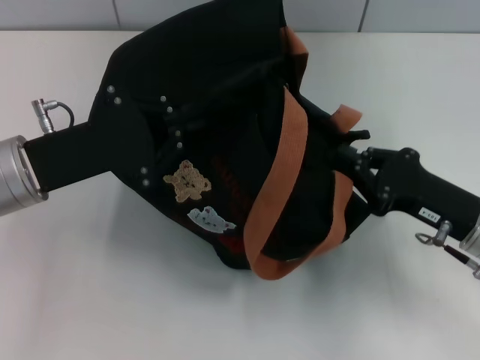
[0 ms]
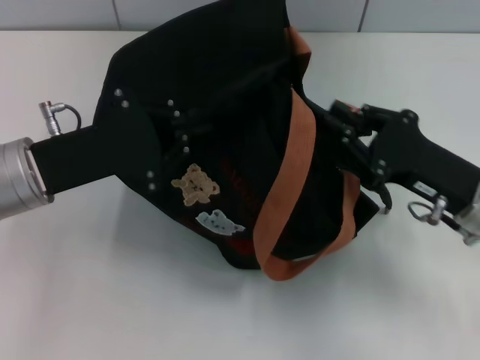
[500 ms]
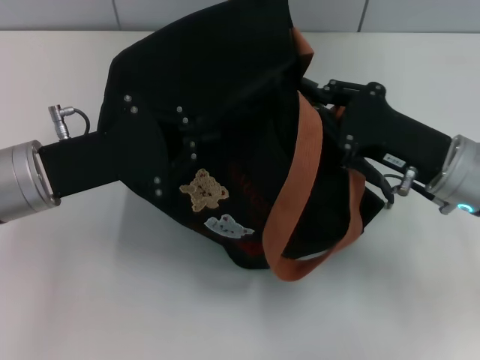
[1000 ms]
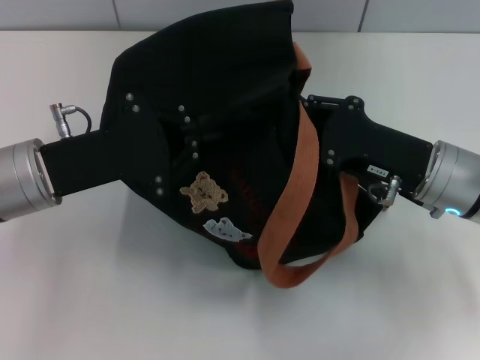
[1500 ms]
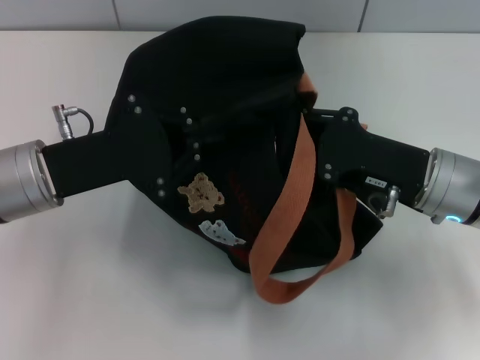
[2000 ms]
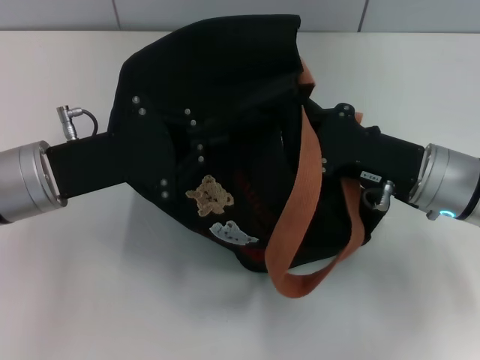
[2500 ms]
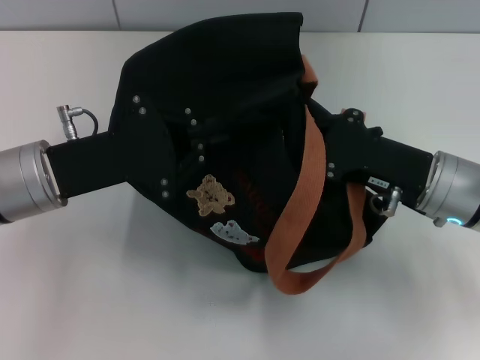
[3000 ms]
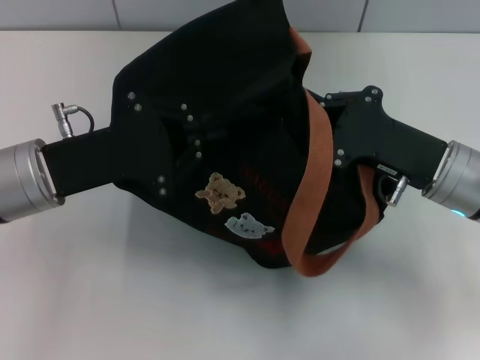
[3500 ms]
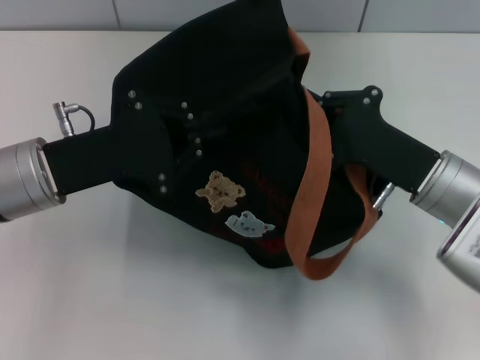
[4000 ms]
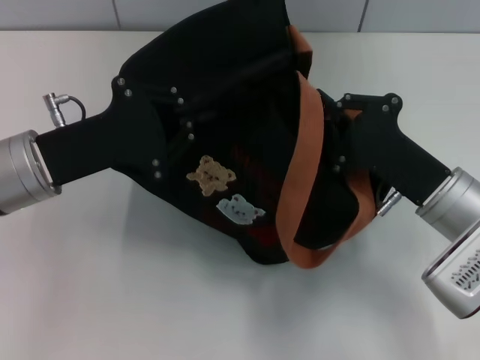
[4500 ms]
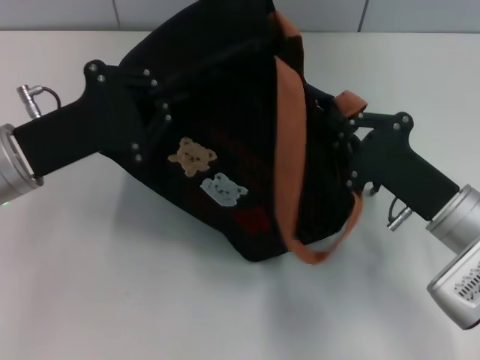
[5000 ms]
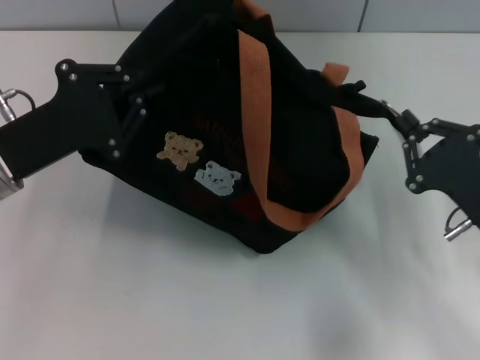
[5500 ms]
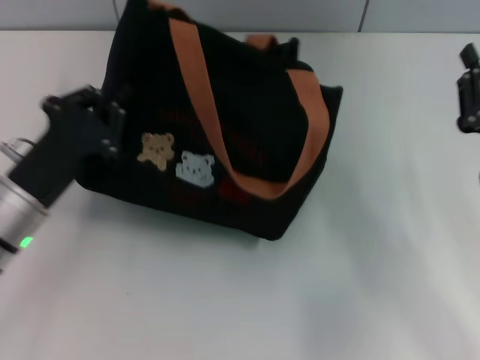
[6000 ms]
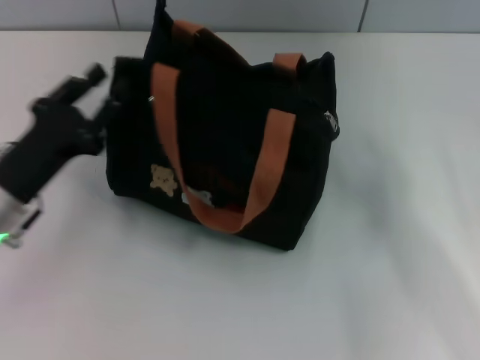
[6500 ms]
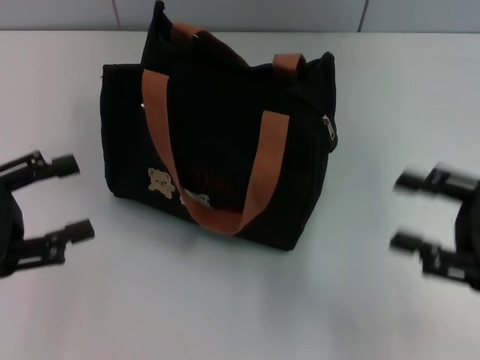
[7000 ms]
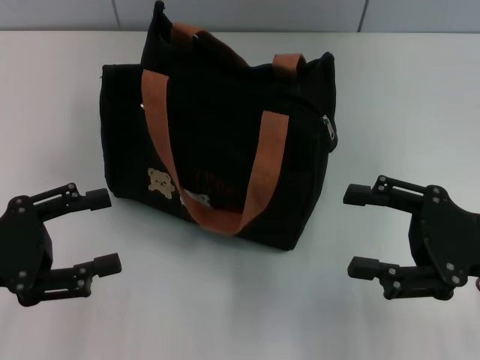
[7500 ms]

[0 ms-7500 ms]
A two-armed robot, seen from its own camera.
Step, 0 ms to 5500 ms: Pull open the zipper with your right hand.
Step, 6000 ms to 6500 ms: Grab the bag with your left hand.
0 ms to 2000 ms: The right gripper changes place by some 5 cm, and opens its fingers.
2000 ms to 4000 ms: The right gripper closes up.
4000 ms to 5500 ms: The right gripper shifts roughly 10 cm to the right and backward.
5500 ms to 7500 ms: The right gripper goes roughly 5 cm upward, and opens; the left gripper is displaced backward and to the left by roughly 10 cm, and opens up.

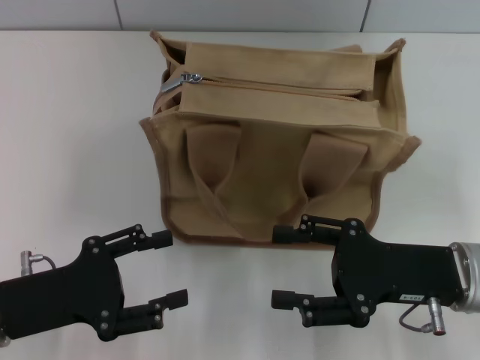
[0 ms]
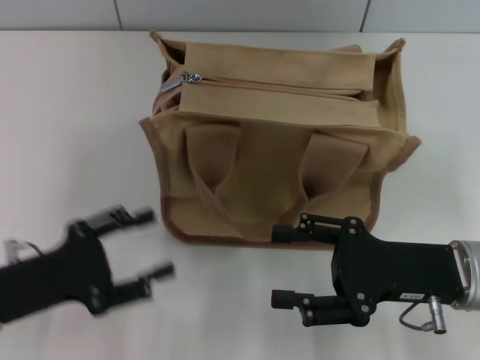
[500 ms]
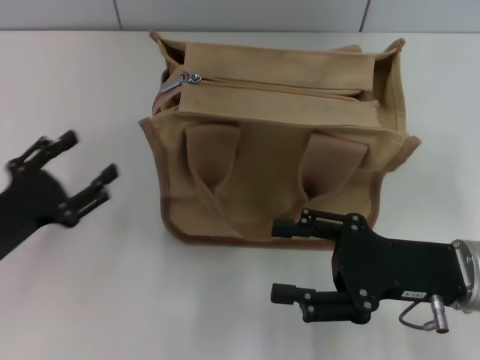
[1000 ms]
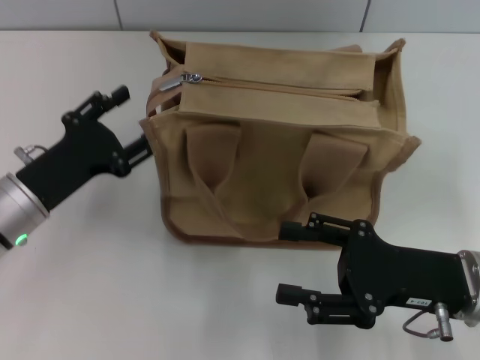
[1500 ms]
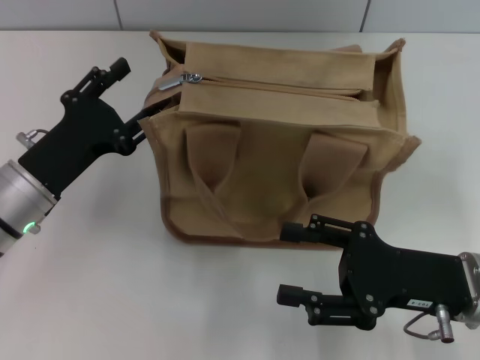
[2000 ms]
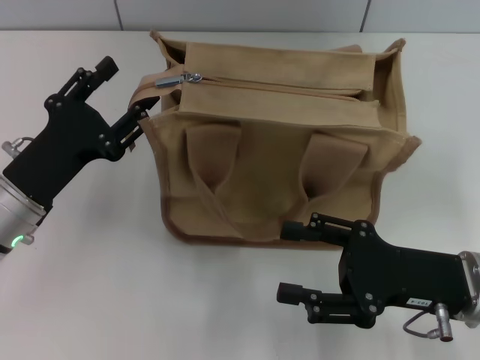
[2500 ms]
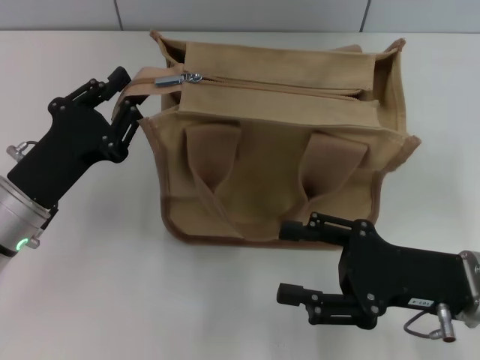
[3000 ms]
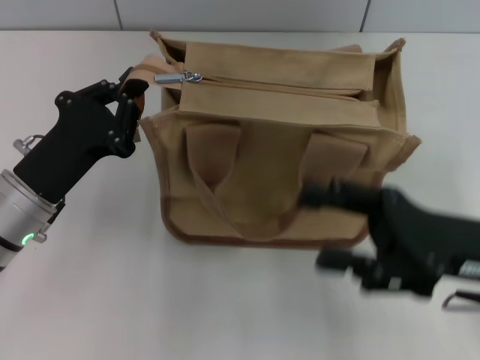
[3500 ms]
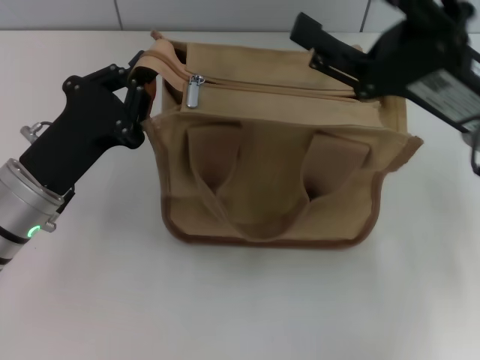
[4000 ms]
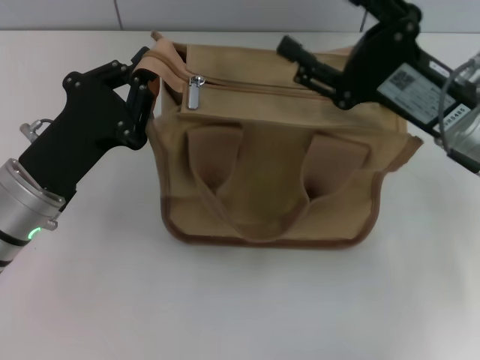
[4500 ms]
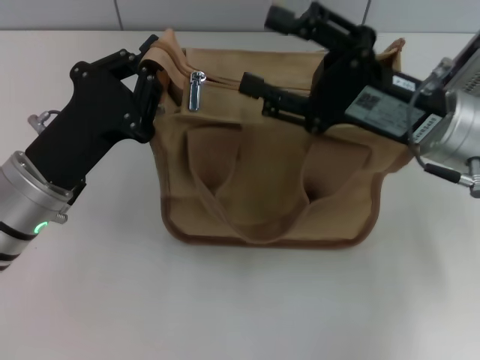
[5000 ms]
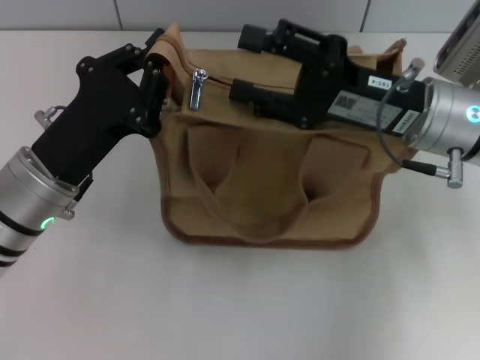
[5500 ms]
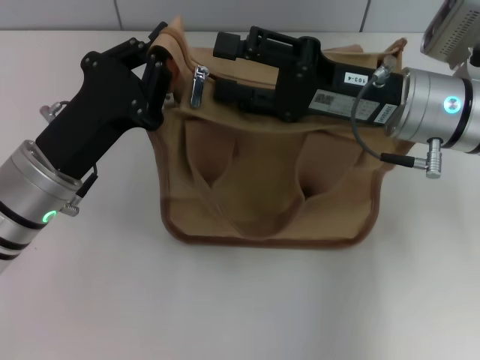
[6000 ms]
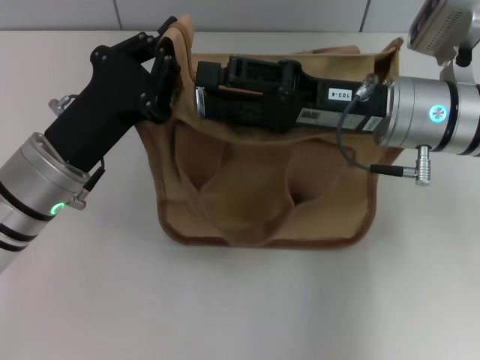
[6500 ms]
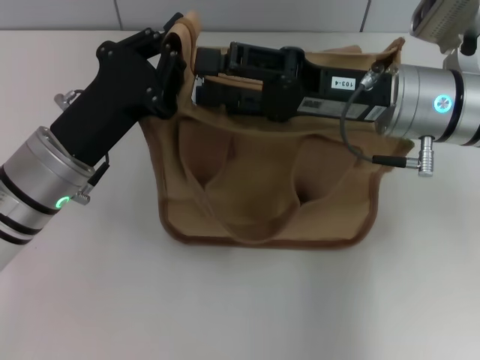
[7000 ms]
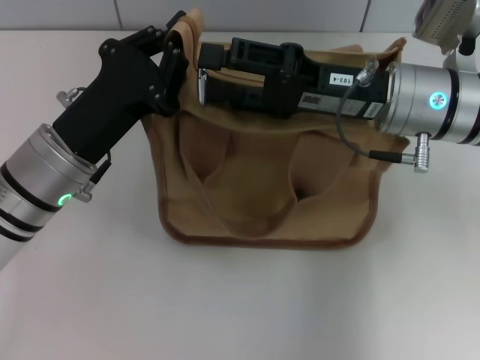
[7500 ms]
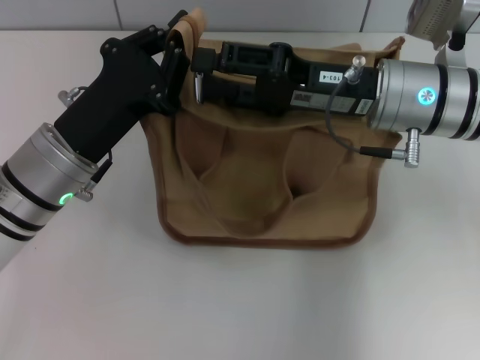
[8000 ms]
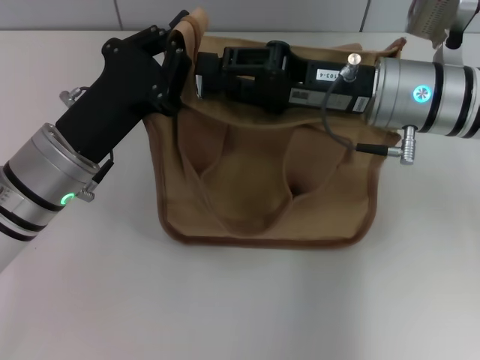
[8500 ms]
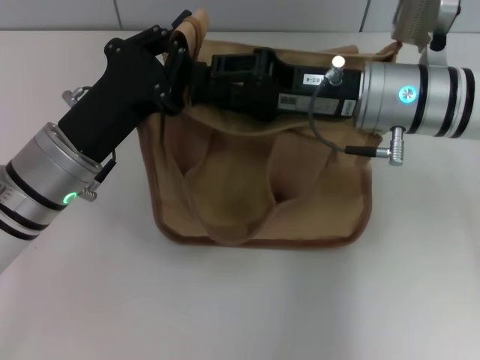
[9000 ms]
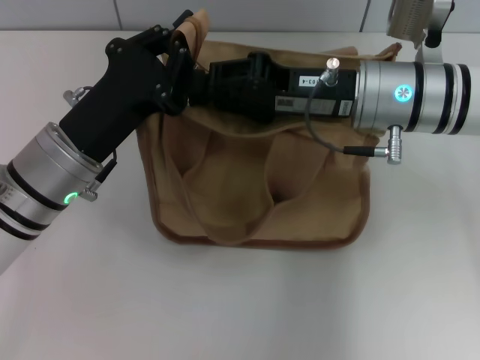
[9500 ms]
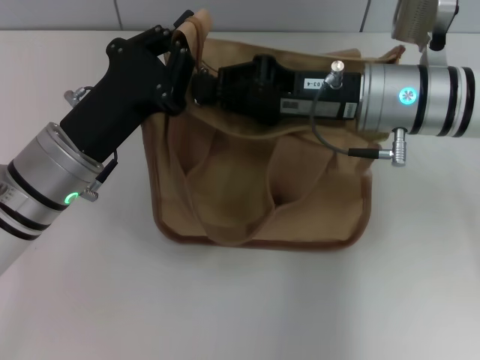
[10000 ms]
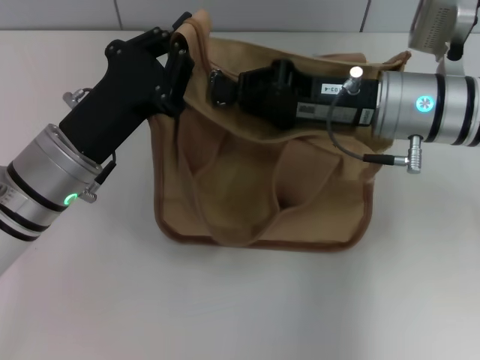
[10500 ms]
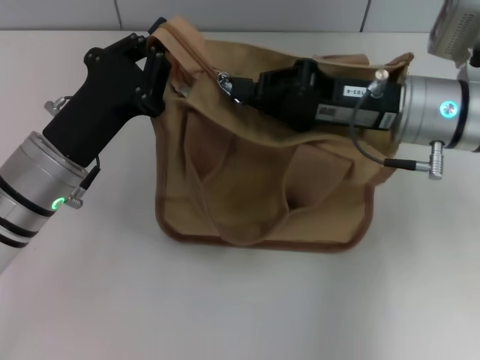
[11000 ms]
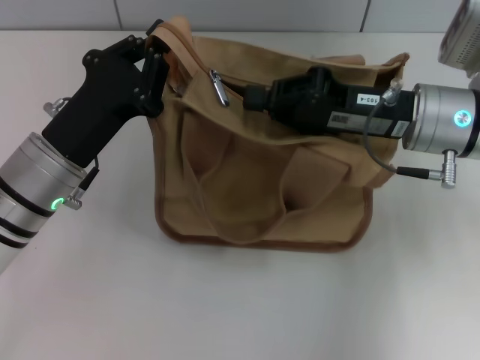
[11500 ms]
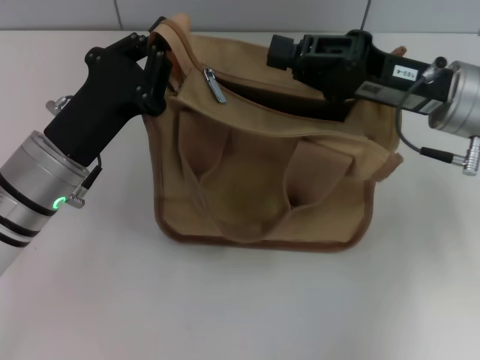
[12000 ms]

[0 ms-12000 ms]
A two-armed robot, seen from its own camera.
0 ms to 2000 ms: The left gripper travels forward by some 10 cm.
2000 ms to 4000 ms: The right gripper goes roughly 10 cm upward and forward. Meanwhile the left gripper closes its fingers.
4000 ms to 6000 ms: The right gripper shifts by roughly 5 cm.
6000 ms to 8000 ms: The grippers move only a little.
8000 ms to 10000 ms: The right gripper closes up.
10000 ms to 12000 ms: The right gripper travels to the right by approximately 5 cm.

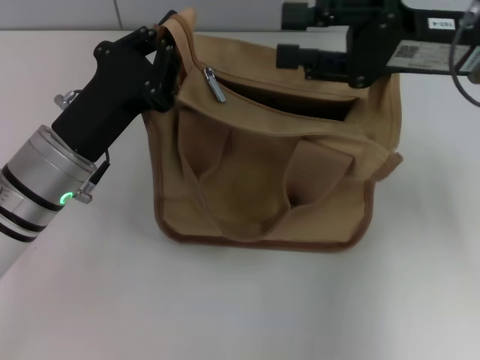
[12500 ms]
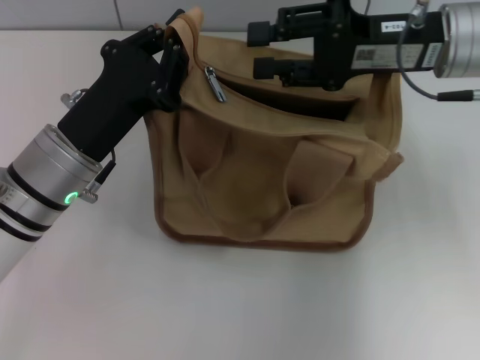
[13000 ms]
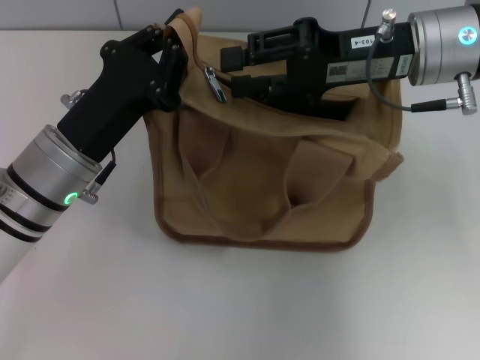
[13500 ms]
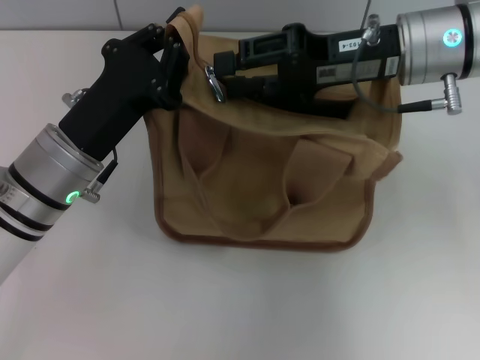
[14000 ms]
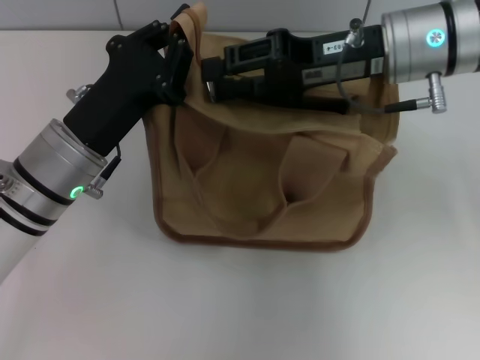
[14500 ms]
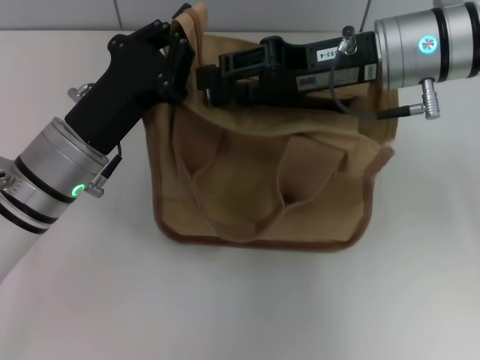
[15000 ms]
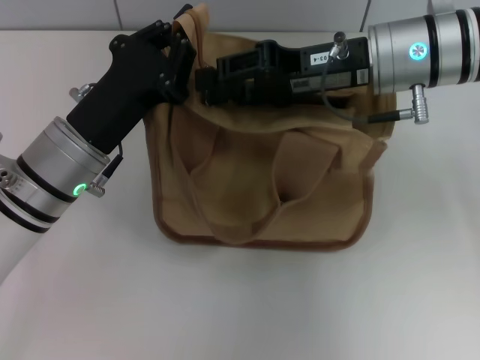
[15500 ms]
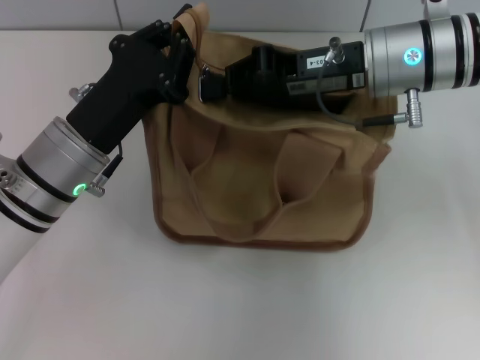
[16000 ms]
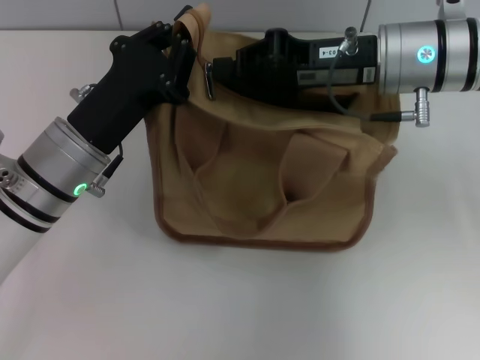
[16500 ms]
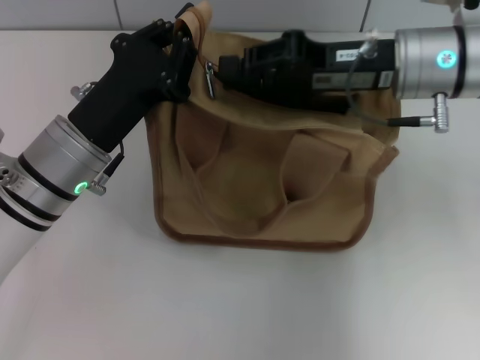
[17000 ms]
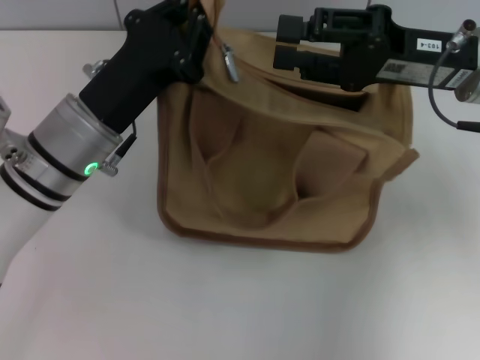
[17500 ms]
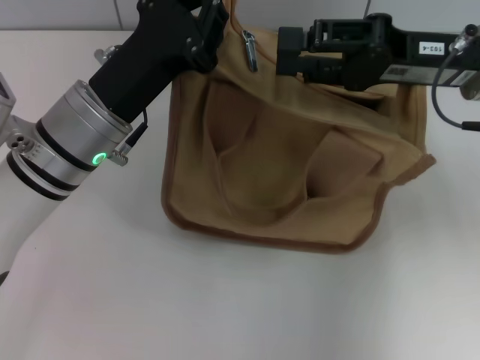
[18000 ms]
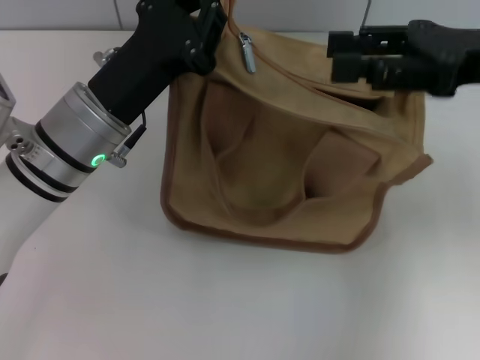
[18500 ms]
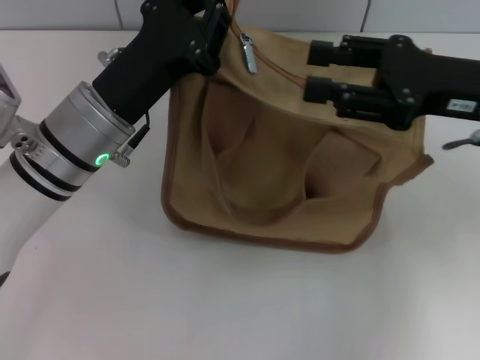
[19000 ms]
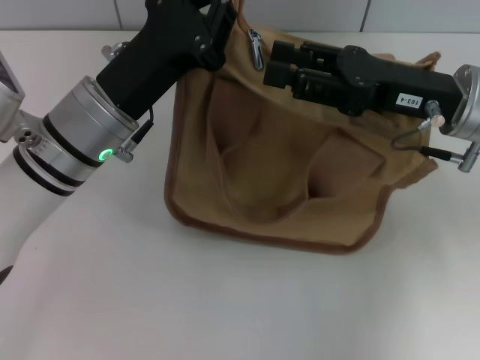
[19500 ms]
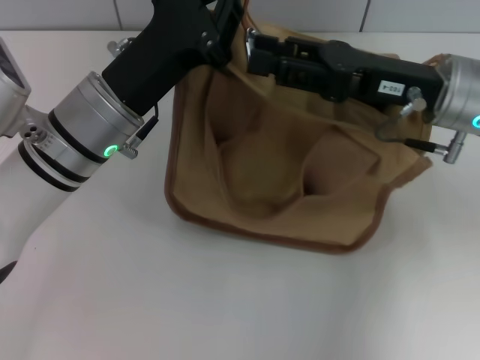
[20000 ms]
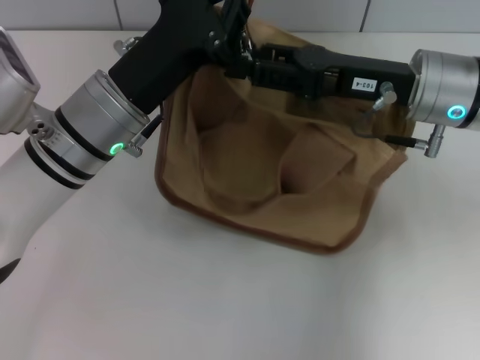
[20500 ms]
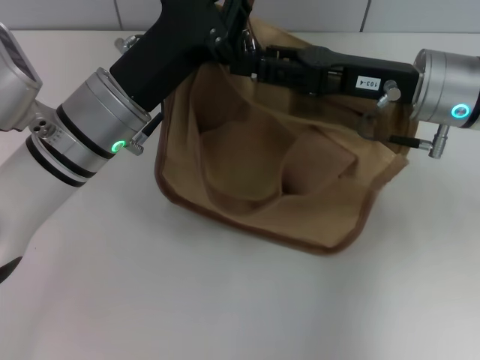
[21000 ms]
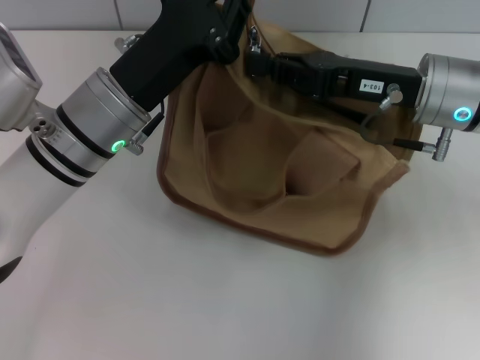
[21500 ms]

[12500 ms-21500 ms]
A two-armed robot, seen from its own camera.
12500 ms to 14500 ms: The right gripper goes approximately 5 cm to the left.
14500 ms to 17000 ms: The right gripper closes its fingers.
17000 ms to 19500 ms: The right gripper opens its fingers.
19500 ms to 21500 ms: The right gripper closes.
